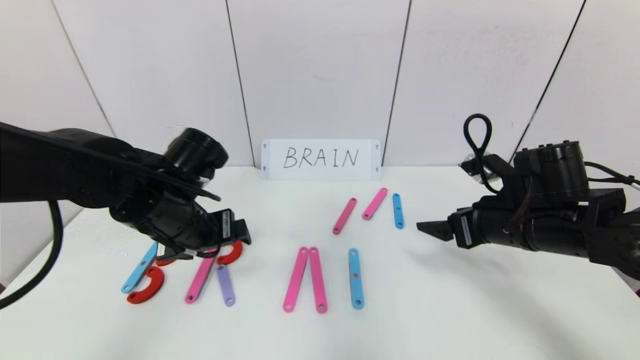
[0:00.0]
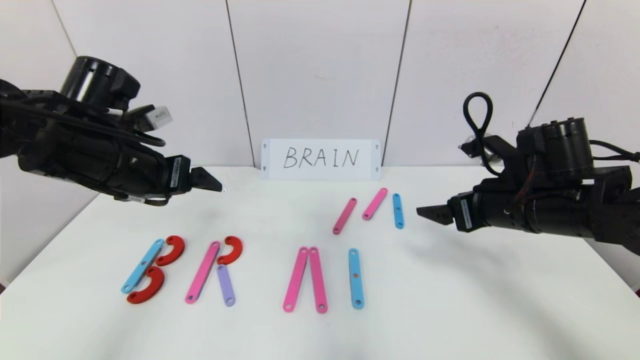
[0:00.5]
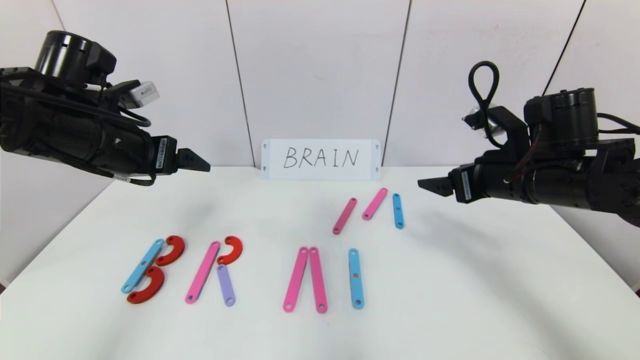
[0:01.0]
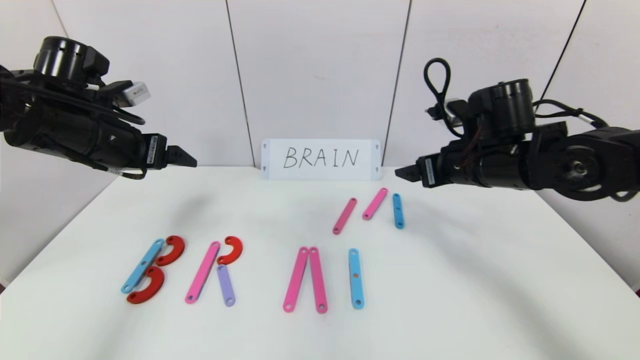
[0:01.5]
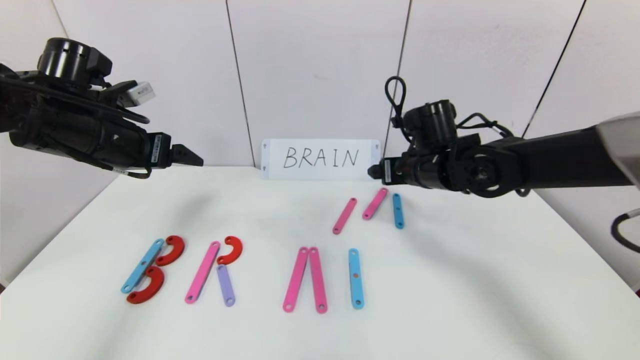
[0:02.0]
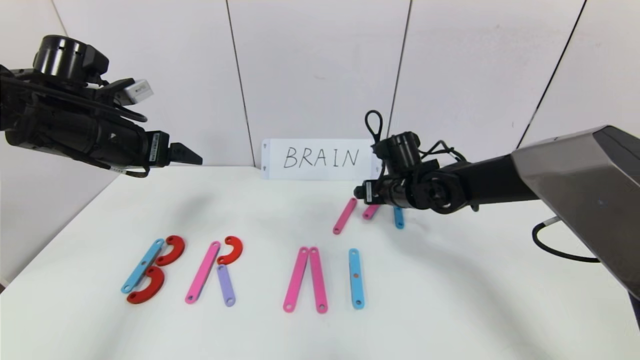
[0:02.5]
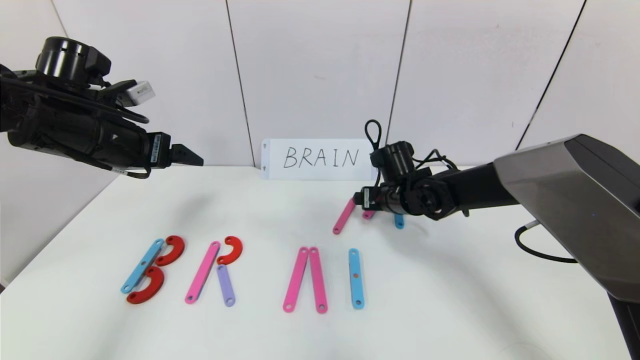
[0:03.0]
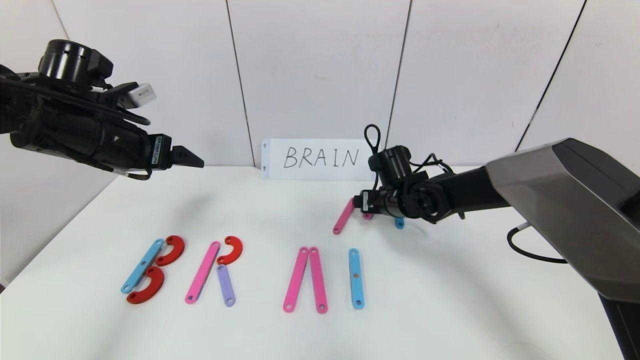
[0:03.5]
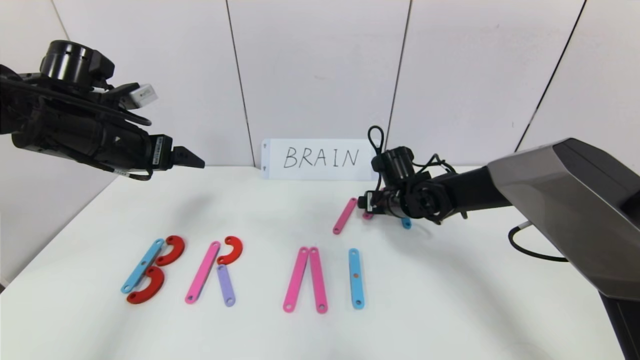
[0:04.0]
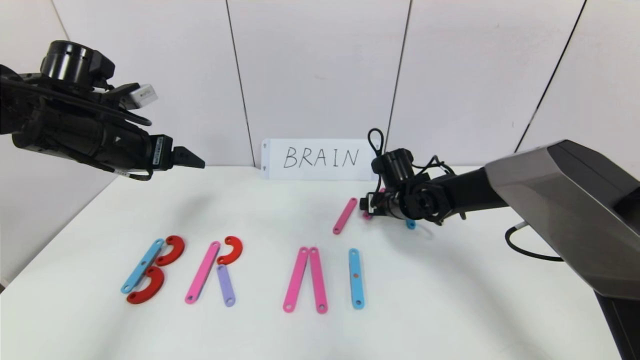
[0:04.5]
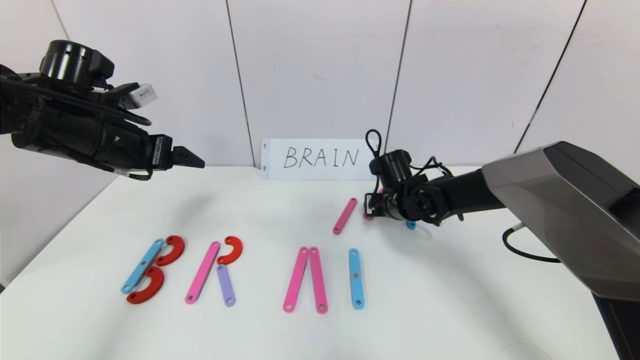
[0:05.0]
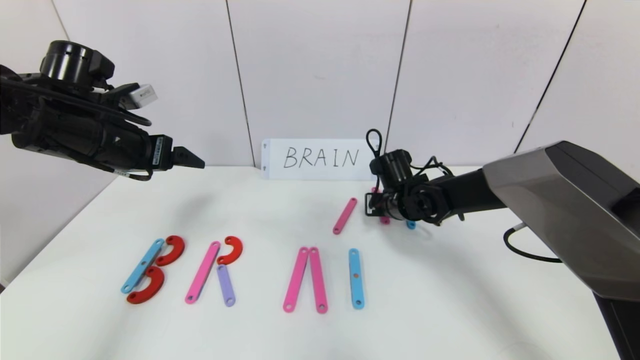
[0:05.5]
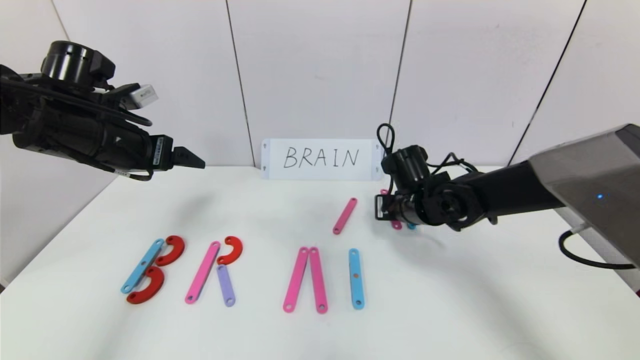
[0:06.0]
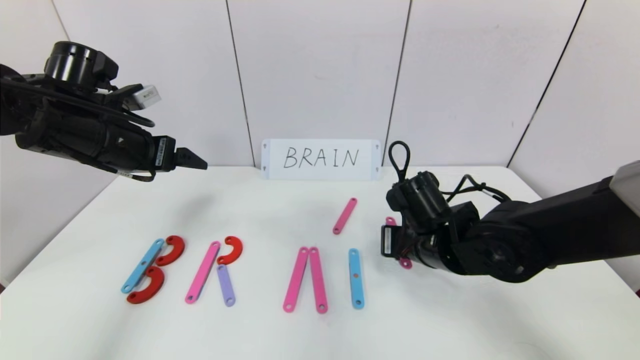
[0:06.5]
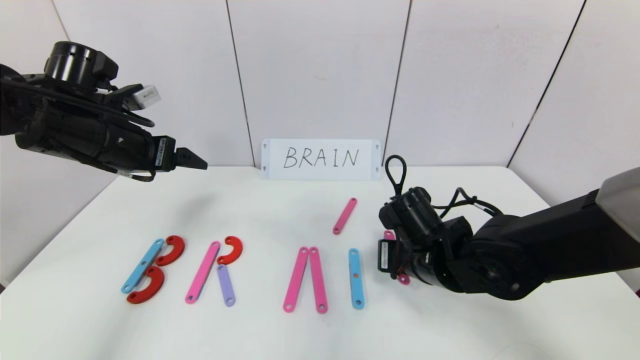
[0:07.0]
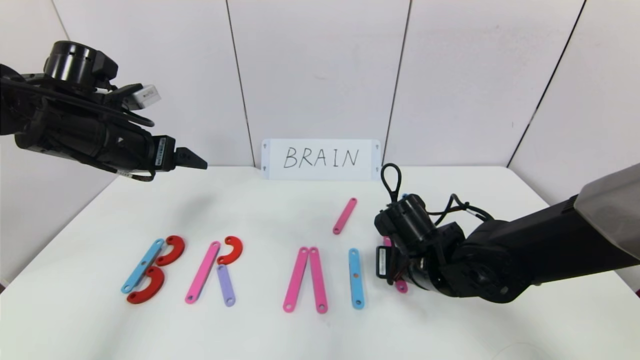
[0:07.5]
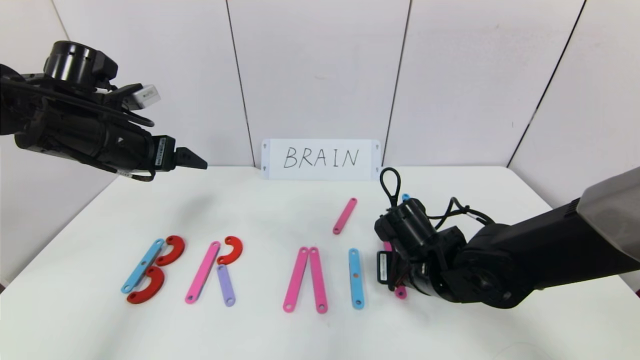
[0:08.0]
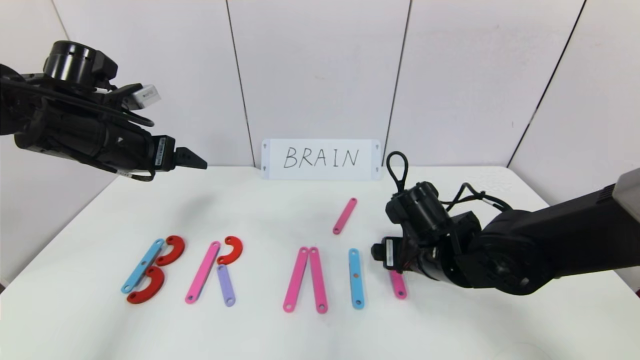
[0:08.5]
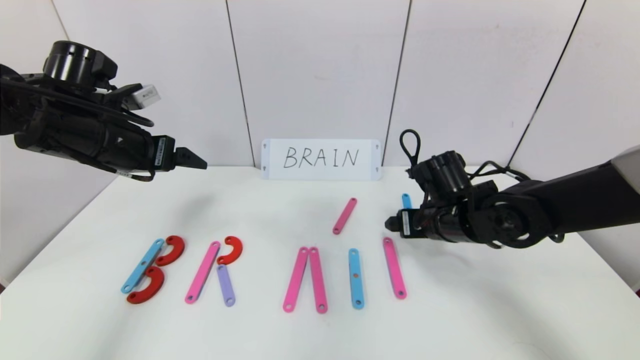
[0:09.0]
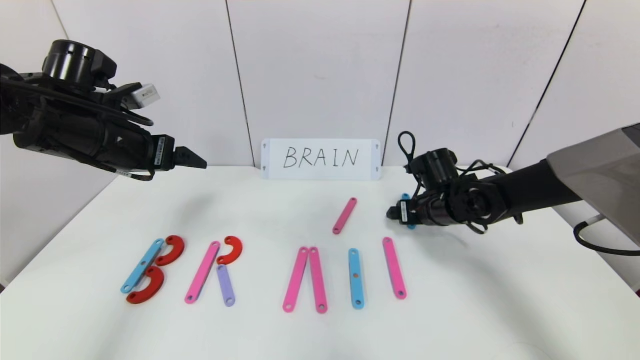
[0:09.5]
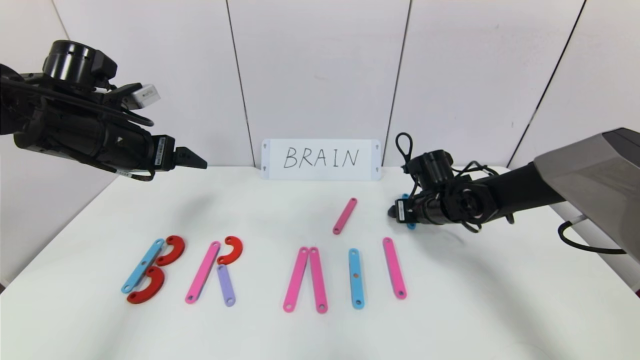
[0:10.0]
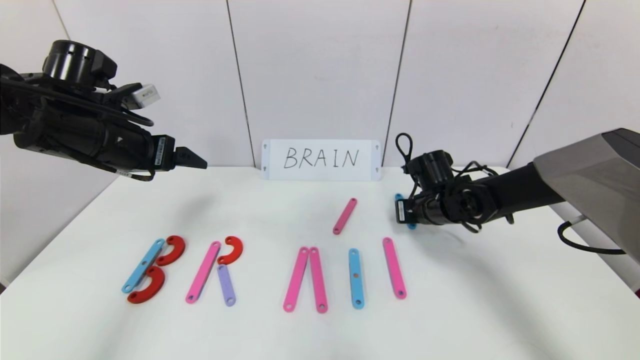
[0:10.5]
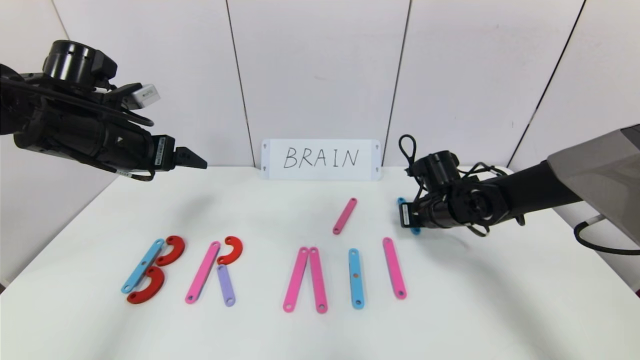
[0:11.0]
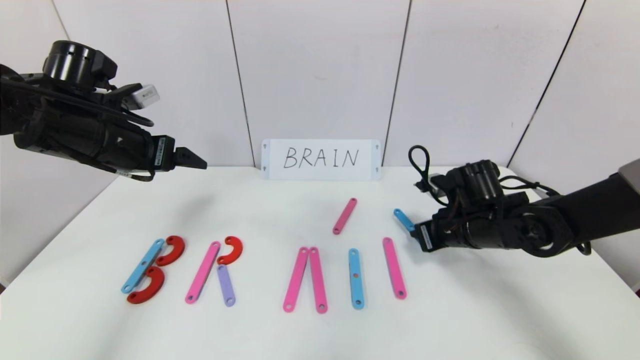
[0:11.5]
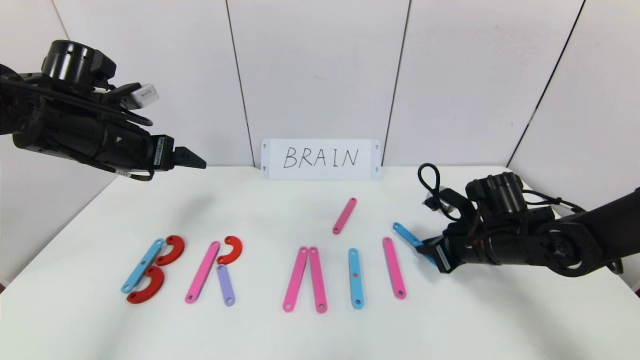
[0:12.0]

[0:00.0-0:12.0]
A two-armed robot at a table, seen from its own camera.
Task of the whole recording: rearrange the word baai as brain.
0:00.0 to 0:02.0: The left gripper is displaced to the left and upward by some 15 cm, while the right gripper is displaced forward and to the left by approximately 15 cm.
0:02.0 to 0:04.0: The right gripper is displaced downward by approximately 10 cm.
0:04.0 to 0:06.0: The right gripper shifts by roughly 5 cm, and closes its fingers.
0:06.0 to 0:08.0: The right gripper is displaced backward by some 10 cm, and opens its fingers.
0:08.0 to 0:10.0: The right gripper is displaced forward and to the right by some 15 cm, and opens its fingers.
0:10.0 to 0:12.0: The right gripper is displaced backward by roughly 10 cm, and closes its fingers.

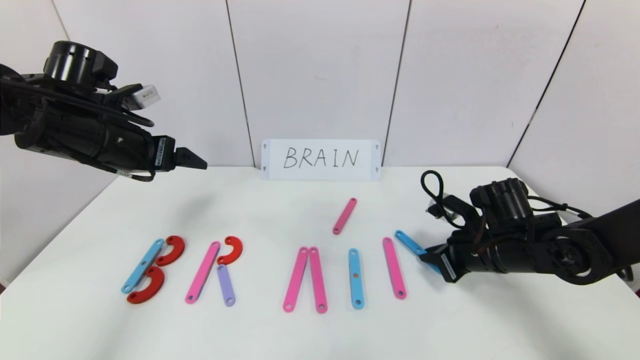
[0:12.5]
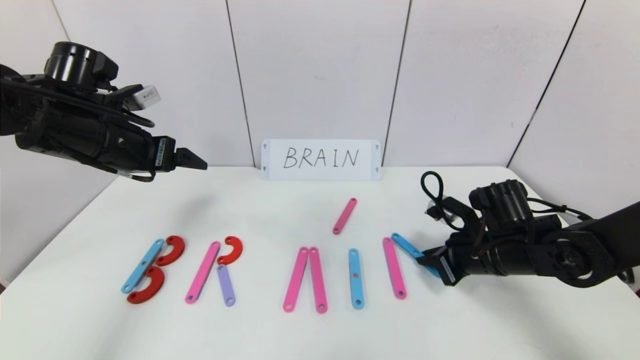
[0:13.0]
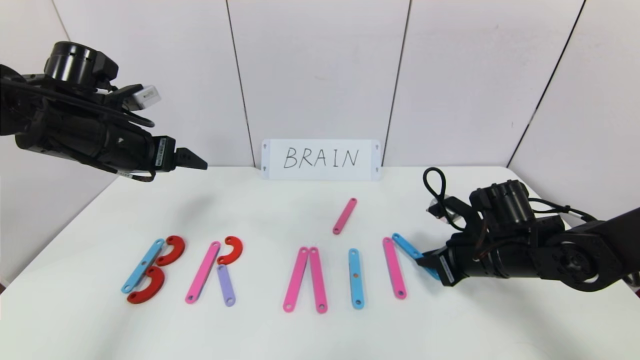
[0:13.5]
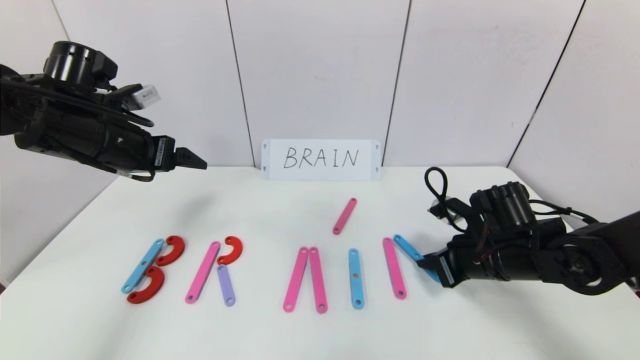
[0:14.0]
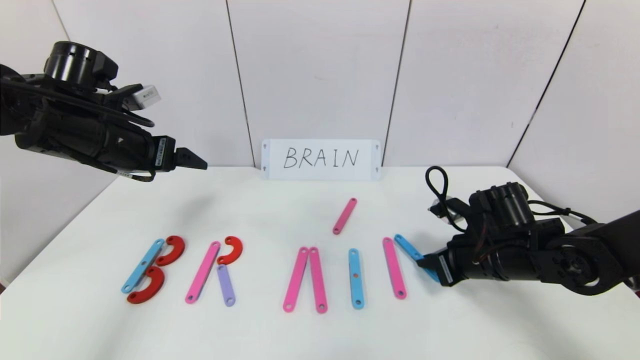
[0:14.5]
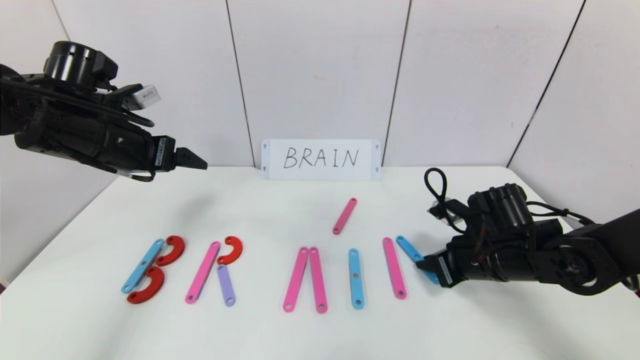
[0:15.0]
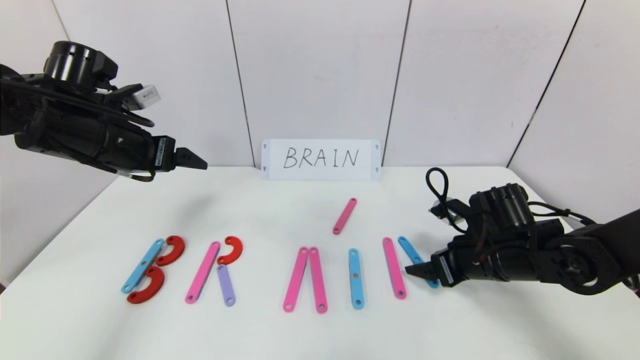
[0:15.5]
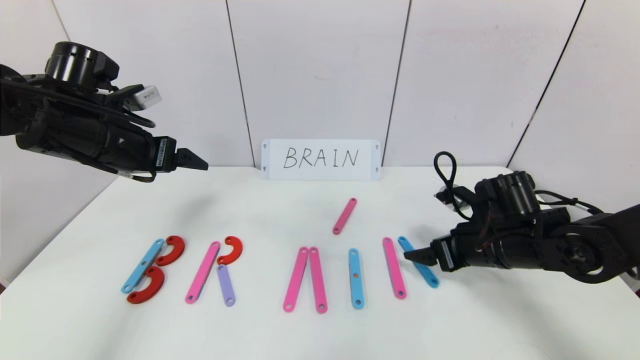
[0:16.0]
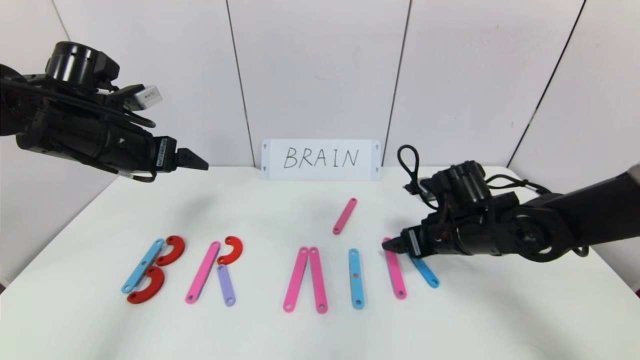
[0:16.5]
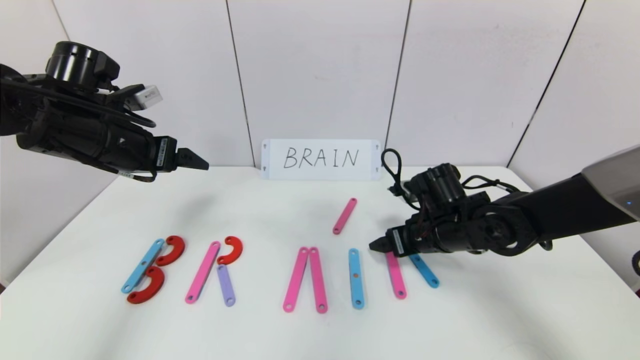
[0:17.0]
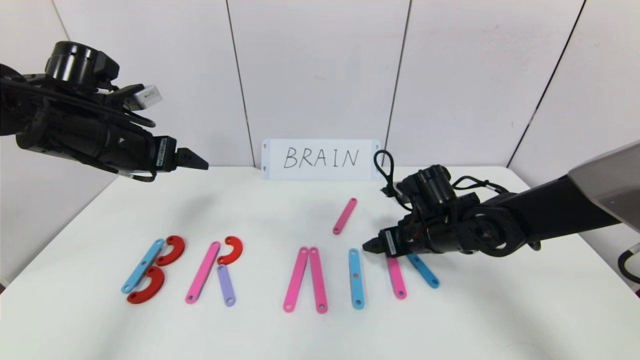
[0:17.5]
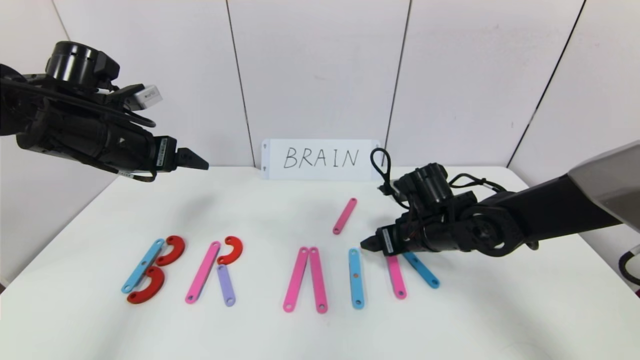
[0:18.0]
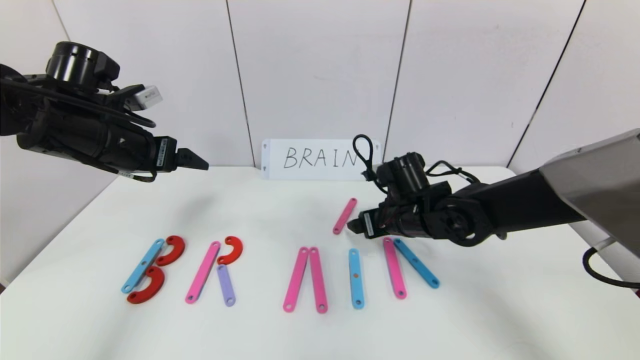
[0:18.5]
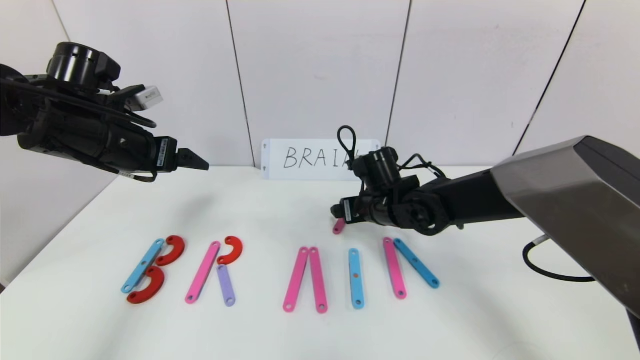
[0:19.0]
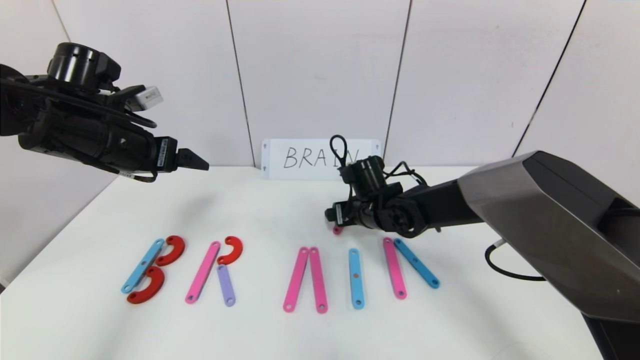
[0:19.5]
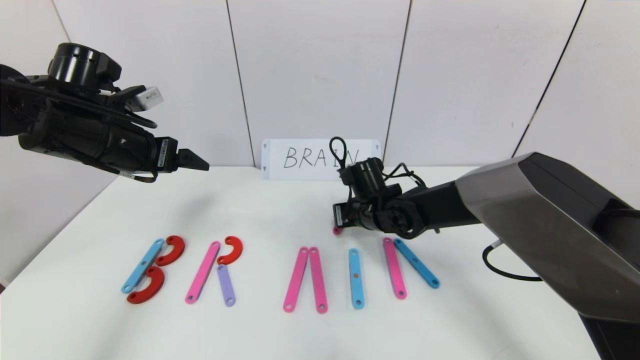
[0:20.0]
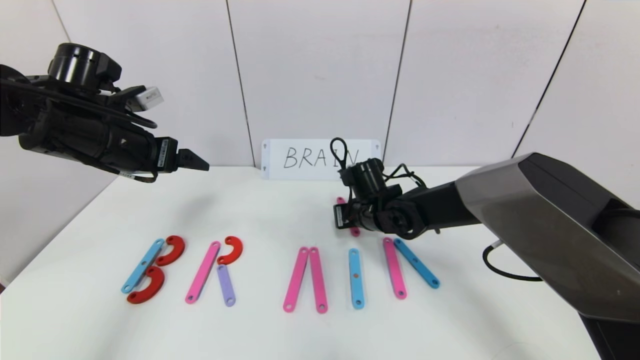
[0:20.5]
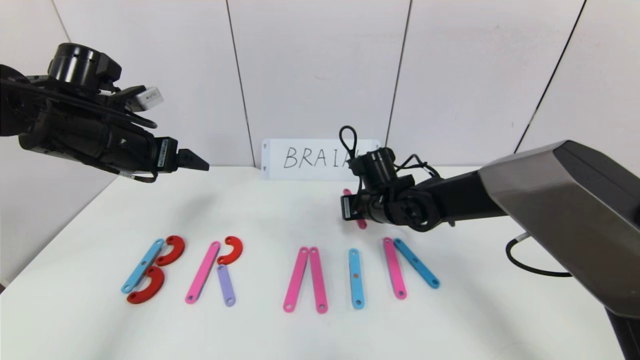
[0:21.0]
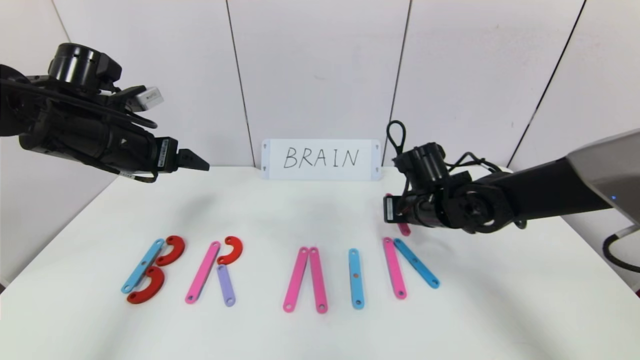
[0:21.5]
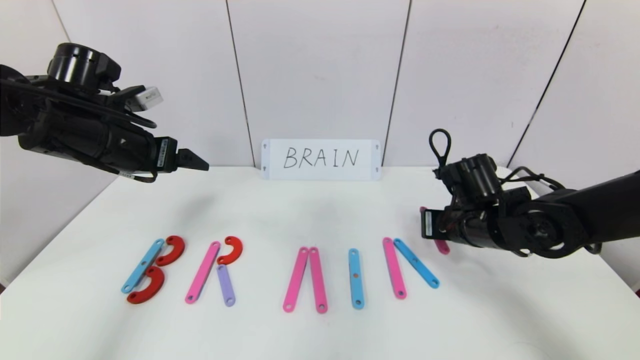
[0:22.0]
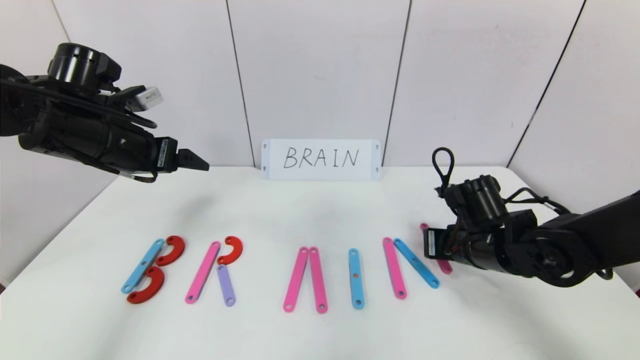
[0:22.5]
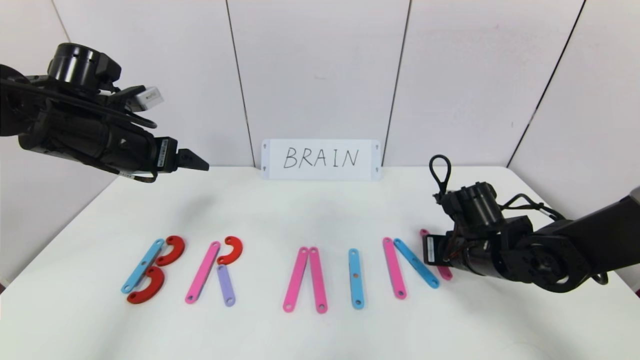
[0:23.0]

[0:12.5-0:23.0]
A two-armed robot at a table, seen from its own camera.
Task of the whole recording: rearrange the word baai as brain.
0:12.5 to 0:14.5: The grippers move only a little.
0:14.5 to 0:16.5: The right gripper shifts by roughly 5 cm, and opens.
0:16.5 to 0:19.0: The right gripper is displaced to the left and forward by some 10 cm.
0:19.0 to 0:21.0: The right gripper closes.
0:21.0 to 0:23.0: The right gripper travels to the right and backward by roughly 15 cm.
